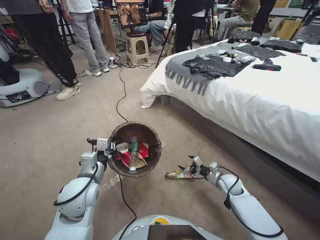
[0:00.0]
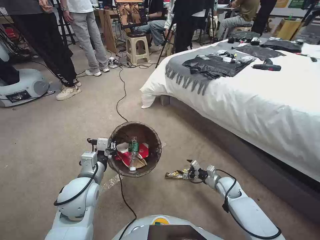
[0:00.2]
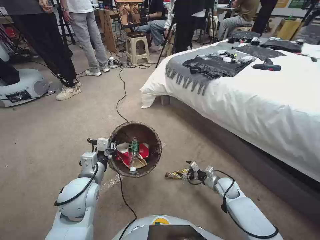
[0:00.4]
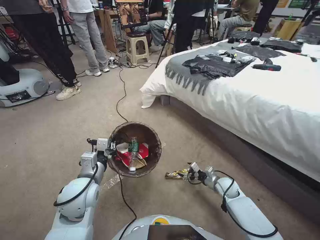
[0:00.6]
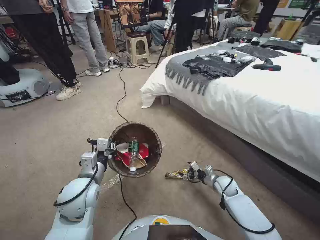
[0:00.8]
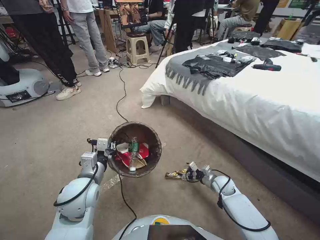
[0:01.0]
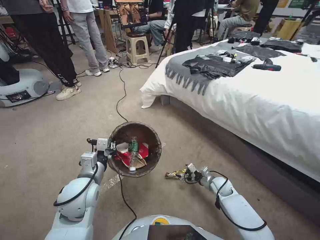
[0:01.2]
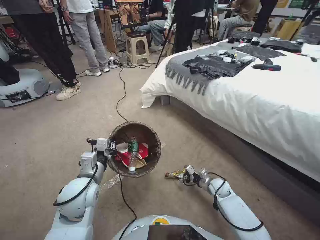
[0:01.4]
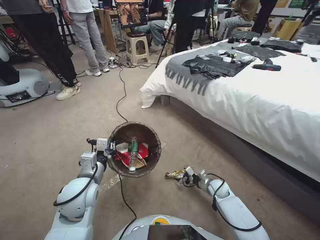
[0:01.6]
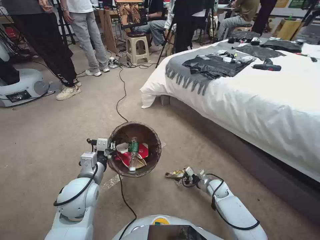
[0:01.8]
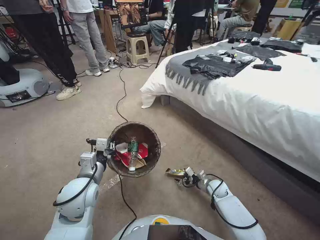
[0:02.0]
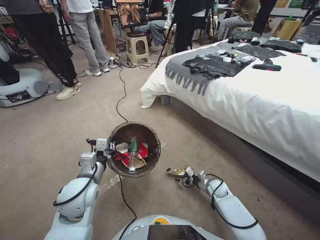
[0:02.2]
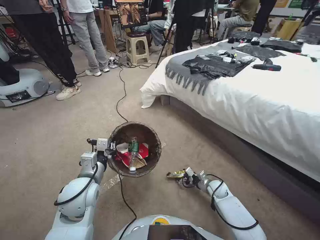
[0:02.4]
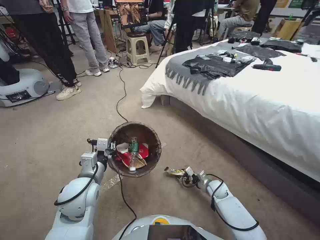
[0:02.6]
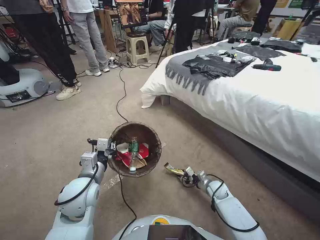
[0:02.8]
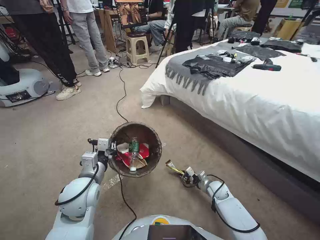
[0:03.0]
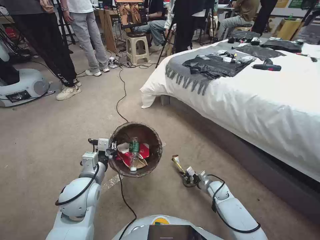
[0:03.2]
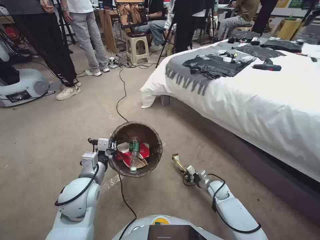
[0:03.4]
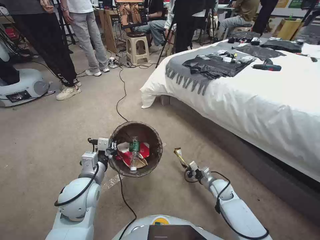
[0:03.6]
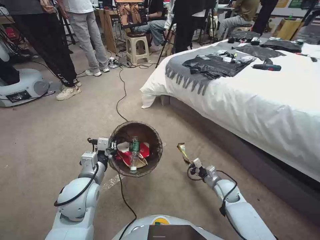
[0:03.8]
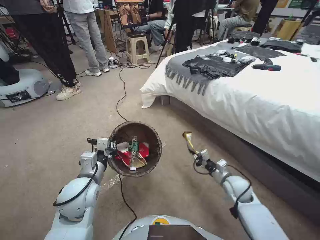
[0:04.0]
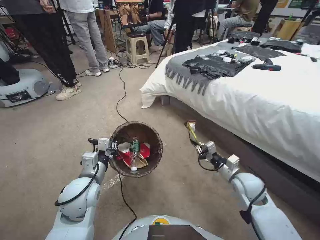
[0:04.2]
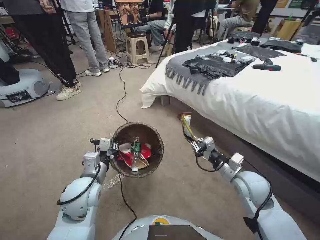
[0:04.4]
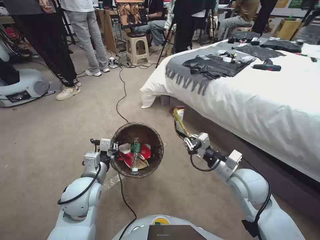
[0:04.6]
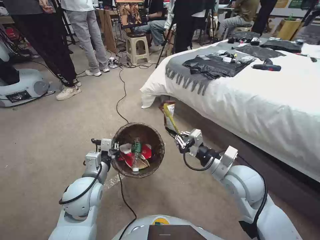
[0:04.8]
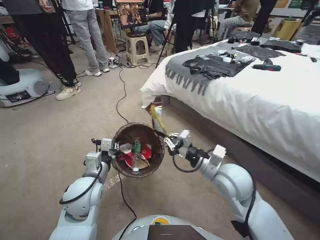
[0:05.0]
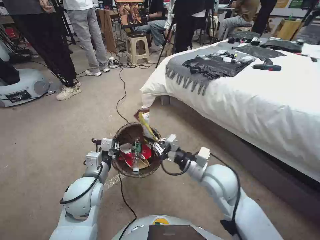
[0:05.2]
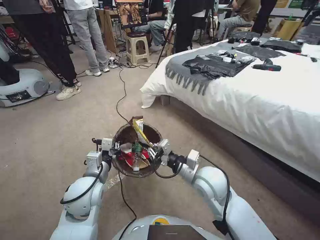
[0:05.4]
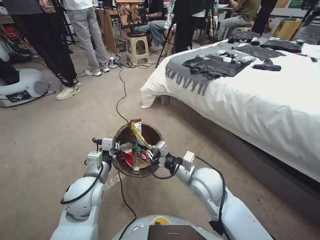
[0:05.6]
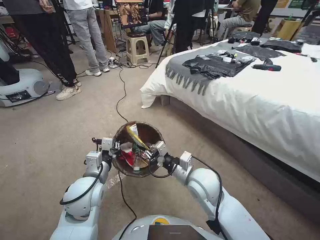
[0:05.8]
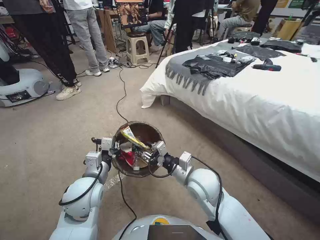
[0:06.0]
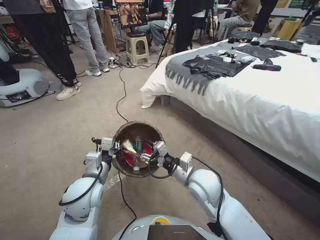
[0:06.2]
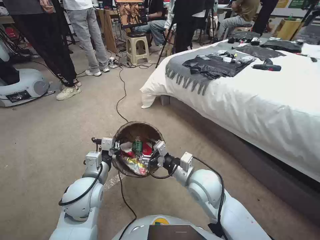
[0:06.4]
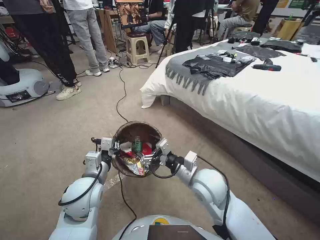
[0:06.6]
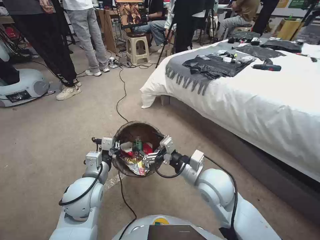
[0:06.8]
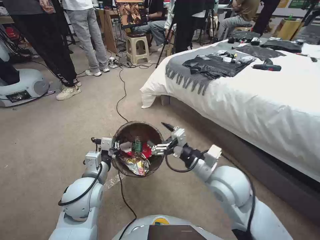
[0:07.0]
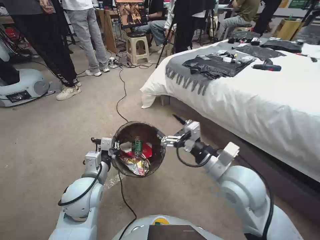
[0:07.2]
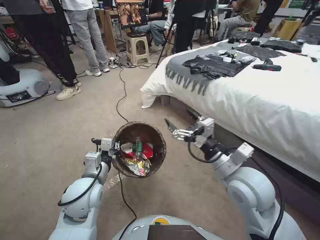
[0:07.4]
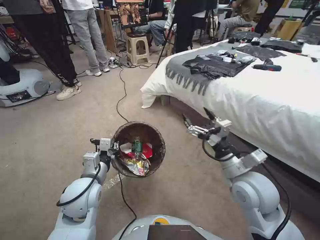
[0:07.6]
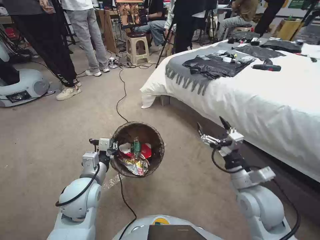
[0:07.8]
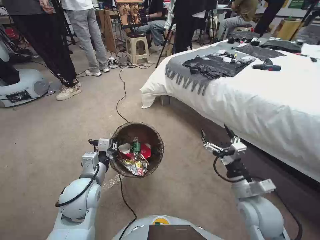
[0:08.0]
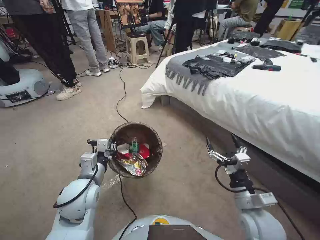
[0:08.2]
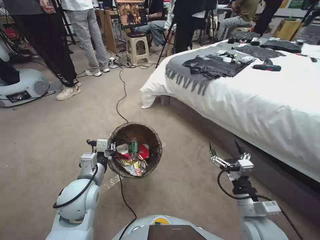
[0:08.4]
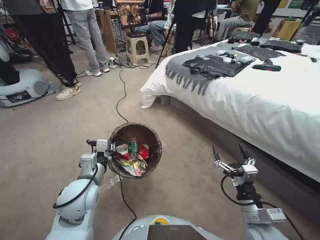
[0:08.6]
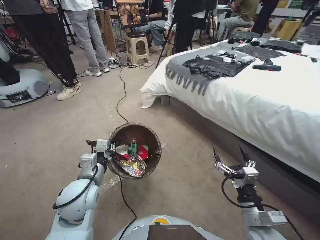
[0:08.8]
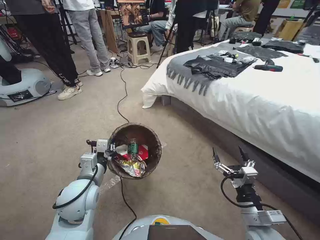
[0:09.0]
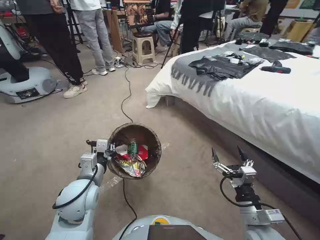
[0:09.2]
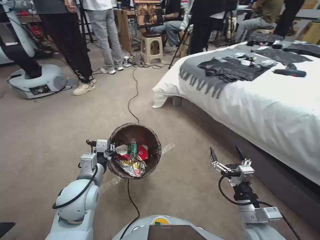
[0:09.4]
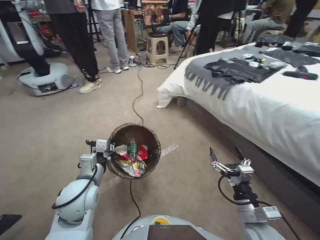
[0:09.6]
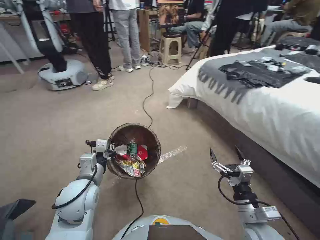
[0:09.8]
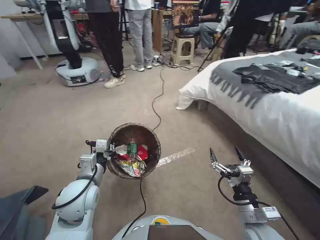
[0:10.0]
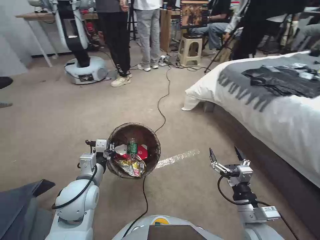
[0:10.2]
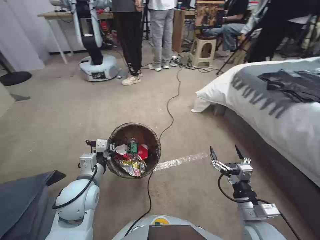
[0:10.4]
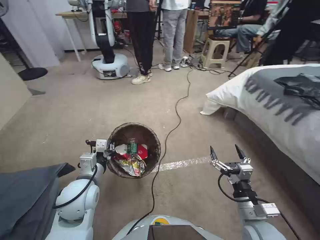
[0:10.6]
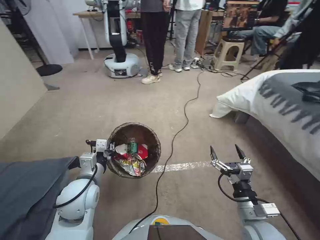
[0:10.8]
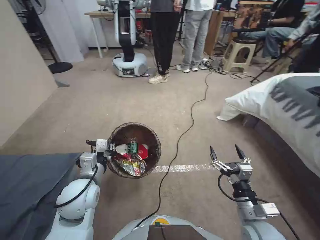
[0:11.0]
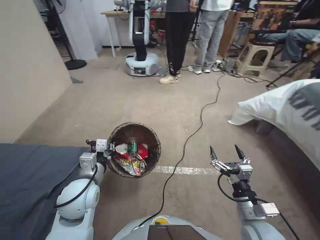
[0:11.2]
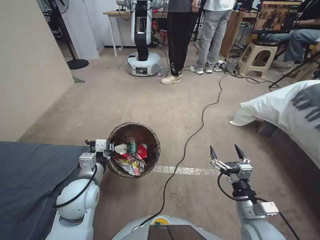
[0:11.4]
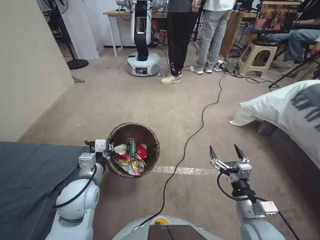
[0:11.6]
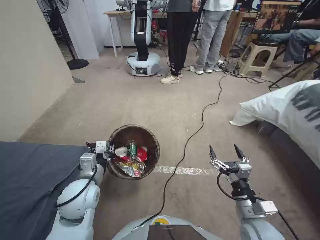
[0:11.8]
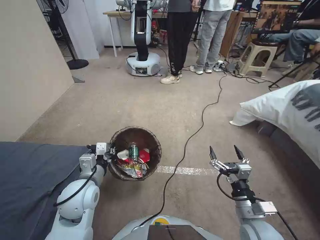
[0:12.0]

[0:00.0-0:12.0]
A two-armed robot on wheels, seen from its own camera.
Task of the whole recording: Pick up the trash bin, then pick up the garbage from the floor and place it into the trash bin.
0:00.0 to 0:01.6: The right gripper is displaced downward by approximately 5 cm.
0:01.6 to 0:03.0: The right gripper closes its fingers.
0:03.0 to 0:04.4: The right gripper shifts roughly 25 cm upward.
0:04.4 to 0:06.0: The right gripper moves to the left, roughly 20 cm.
0:06.0 to 0:07.6: The right gripper shifts approximately 15 cm to the right and upward, and opens.
0:07.6 to 0:09.0: The right gripper heads downward, backward and to the right, covering roughly 20 cm.

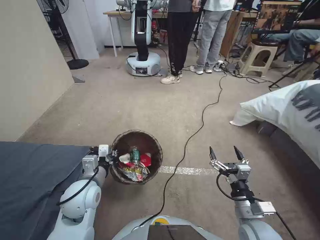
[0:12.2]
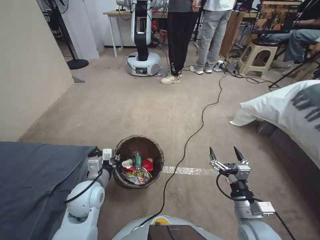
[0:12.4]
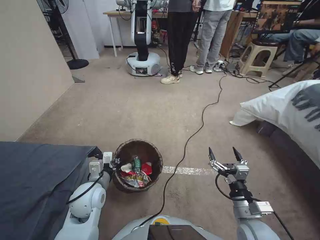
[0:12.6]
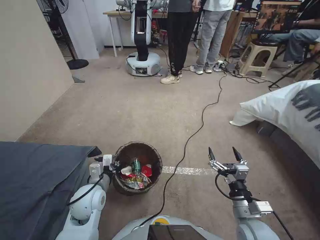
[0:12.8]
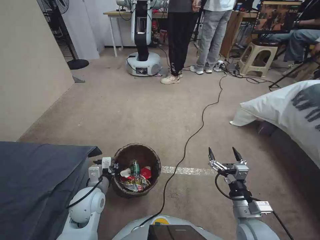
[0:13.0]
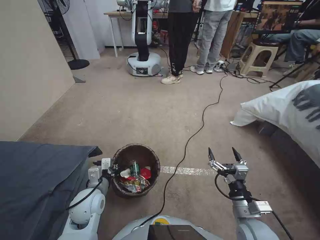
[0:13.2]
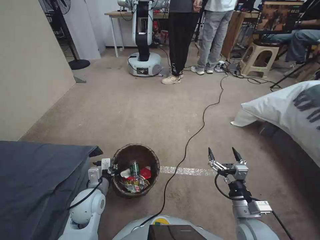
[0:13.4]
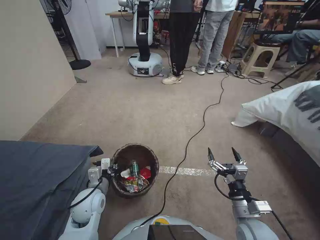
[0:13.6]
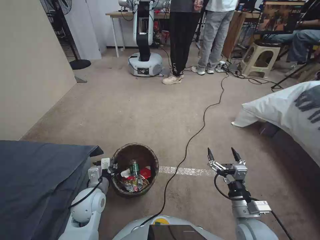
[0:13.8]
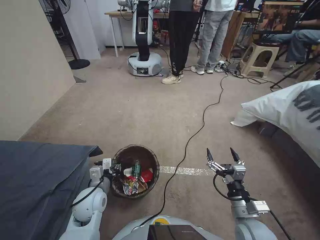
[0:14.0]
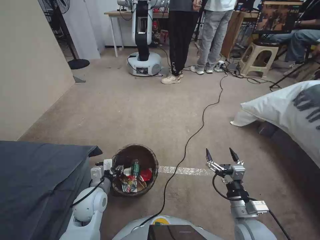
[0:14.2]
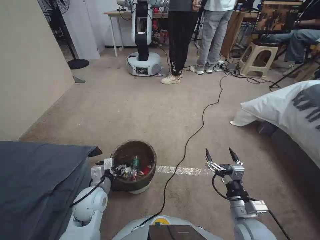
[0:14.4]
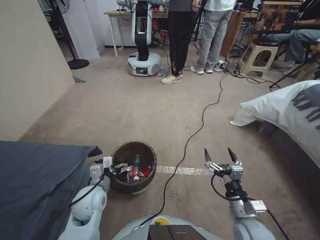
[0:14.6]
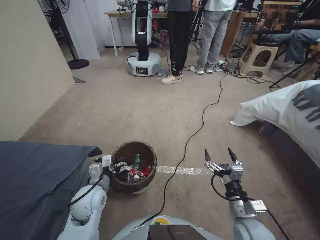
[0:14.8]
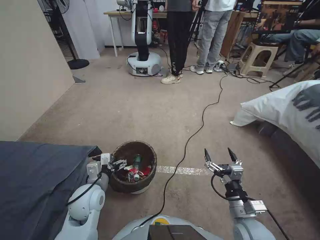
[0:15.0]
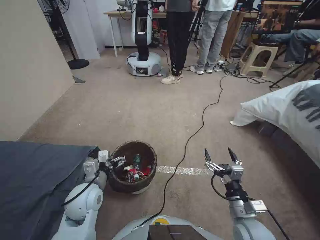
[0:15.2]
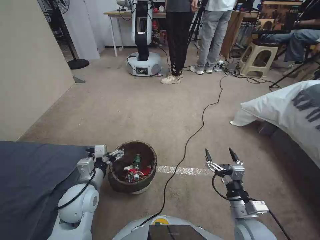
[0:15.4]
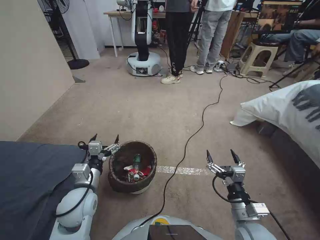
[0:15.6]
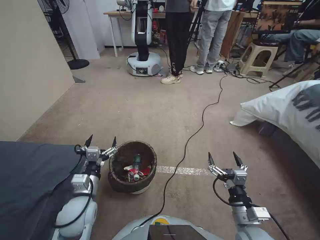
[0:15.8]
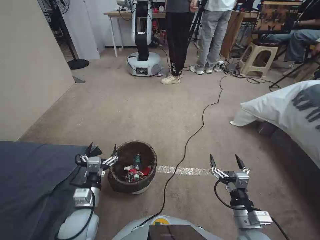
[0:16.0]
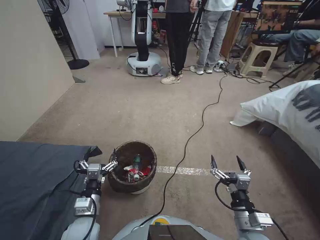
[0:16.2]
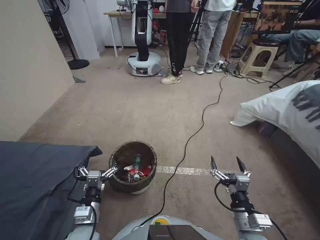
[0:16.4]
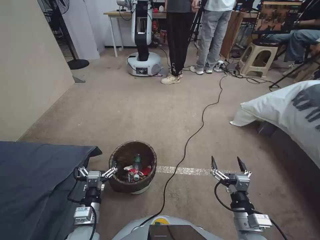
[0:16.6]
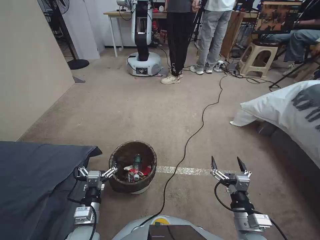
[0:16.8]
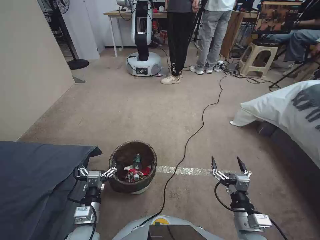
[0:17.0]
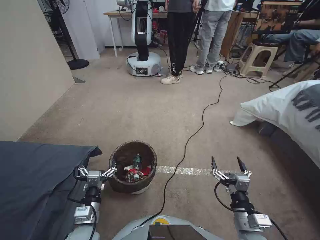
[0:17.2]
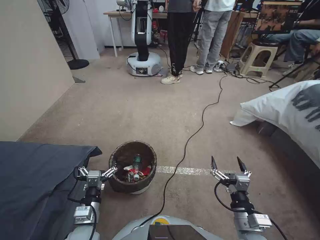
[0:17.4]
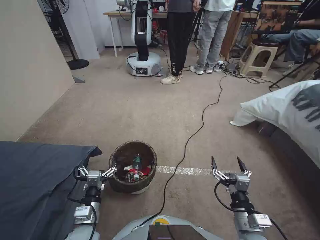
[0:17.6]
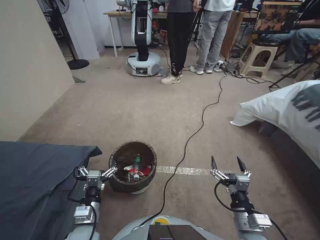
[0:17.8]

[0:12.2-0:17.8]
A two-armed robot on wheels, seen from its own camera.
Task of the whole recording: Pick up the trash bin, then pick up the garbage from the floor and place it into the trash bin.
0:12.2 to 0:13.6: The left gripper shifts approximately 10 cm downward.
0:13.6 to 0:15.0: The left gripper opens its fingers.
0:15.0 to 0:16.4: The left gripper goes roughly 10 cm backward and downward.
0:16.4 to 0:17.8: The two grippers keep their place.

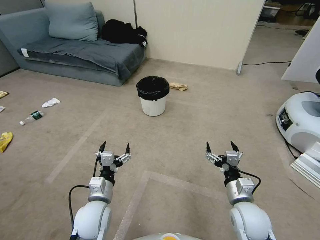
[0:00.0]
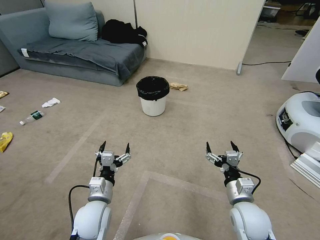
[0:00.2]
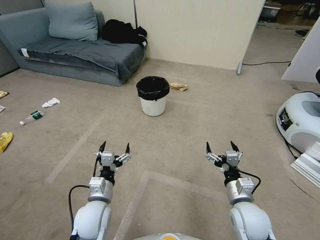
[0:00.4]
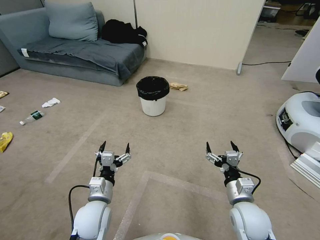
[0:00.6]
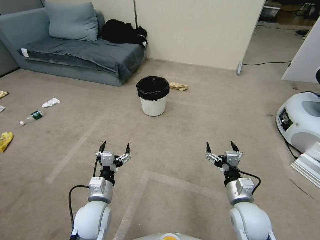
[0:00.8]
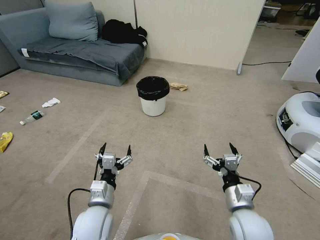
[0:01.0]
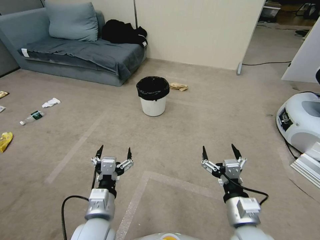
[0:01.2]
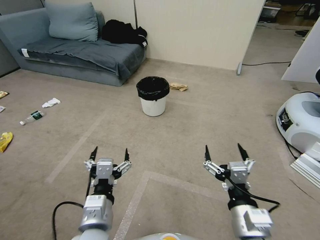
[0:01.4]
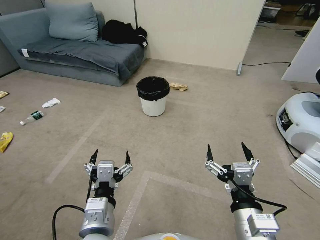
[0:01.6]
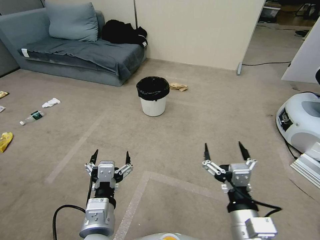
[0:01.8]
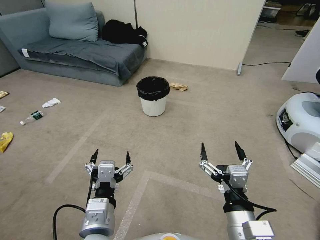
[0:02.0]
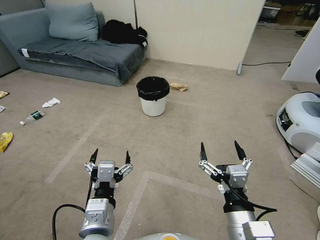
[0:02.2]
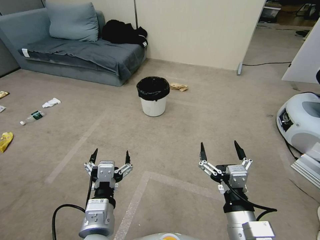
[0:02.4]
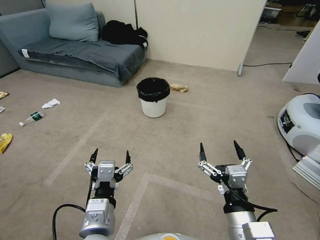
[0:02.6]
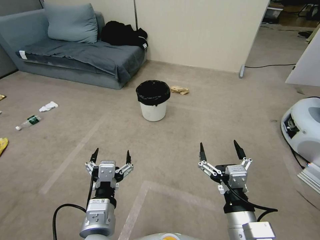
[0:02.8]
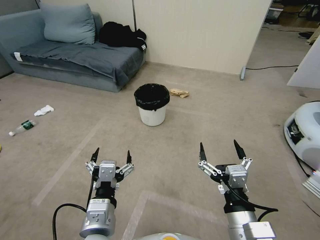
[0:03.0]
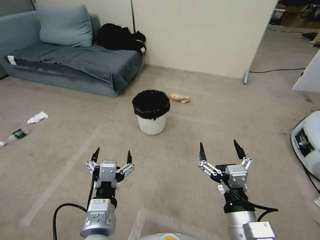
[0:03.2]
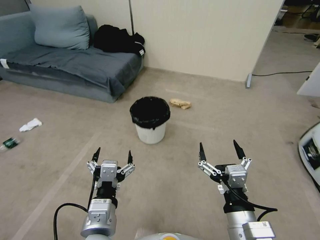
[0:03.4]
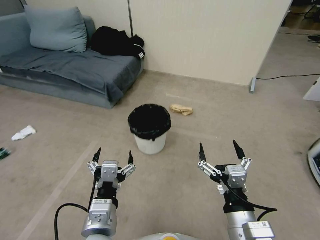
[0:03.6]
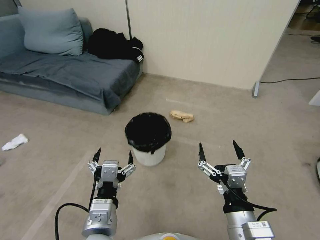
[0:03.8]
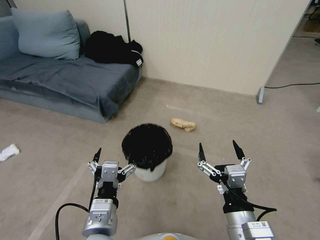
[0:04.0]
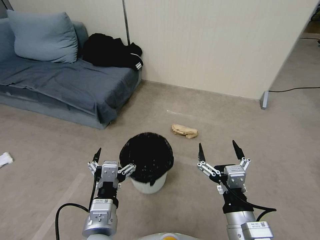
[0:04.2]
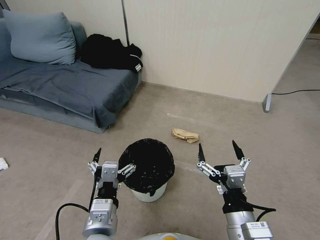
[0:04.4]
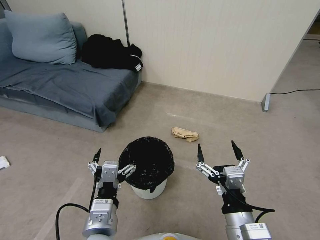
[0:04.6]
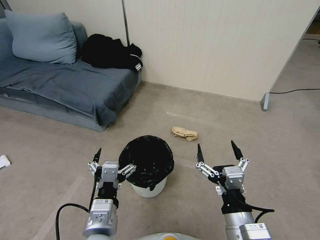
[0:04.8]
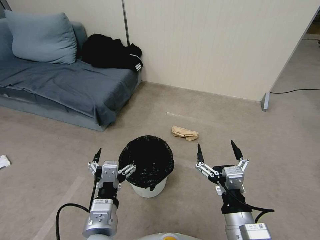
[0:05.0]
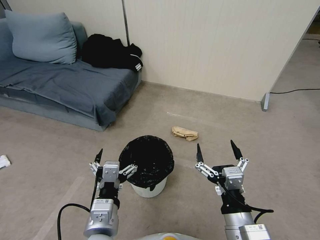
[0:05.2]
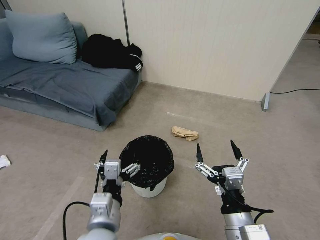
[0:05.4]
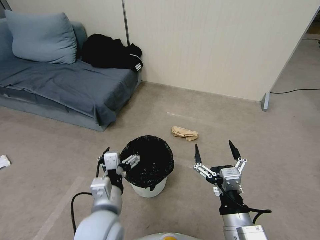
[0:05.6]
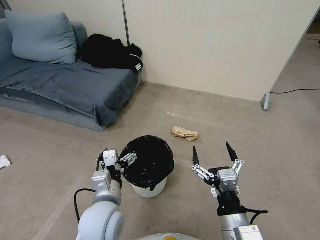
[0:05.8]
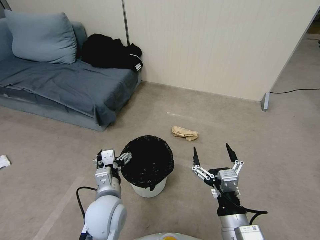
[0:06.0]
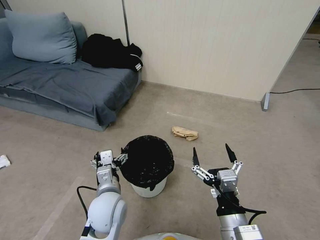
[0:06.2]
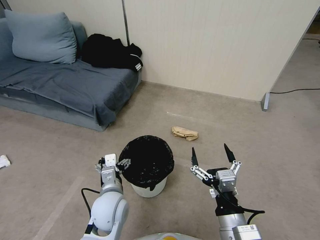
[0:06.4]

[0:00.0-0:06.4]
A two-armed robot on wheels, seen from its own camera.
Task of the whole recording: Pick up the trash bin, then pick up the garbage from the floor and place it into the trash bin.
0:04.8 to 0:06.4: The left gripper goes roughly 15 cm forward and downward.
